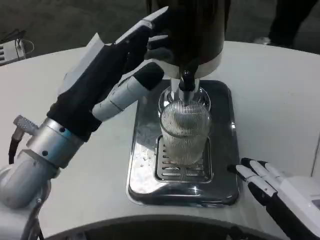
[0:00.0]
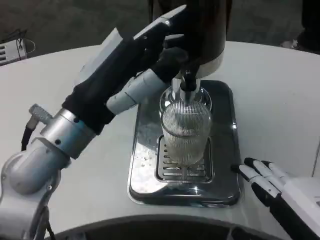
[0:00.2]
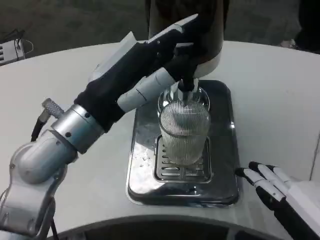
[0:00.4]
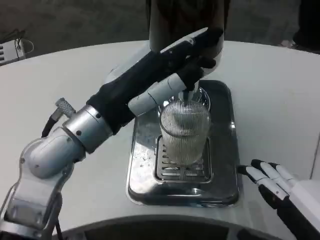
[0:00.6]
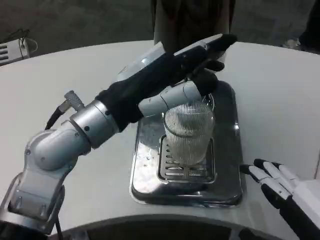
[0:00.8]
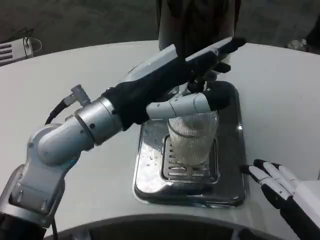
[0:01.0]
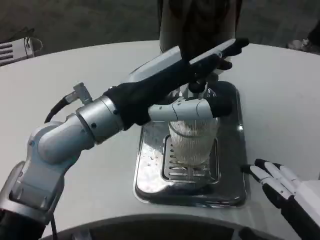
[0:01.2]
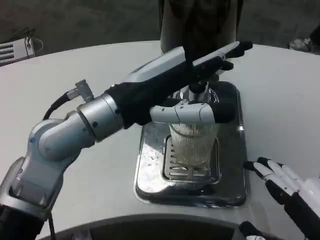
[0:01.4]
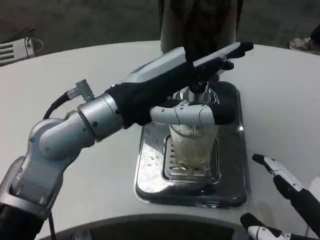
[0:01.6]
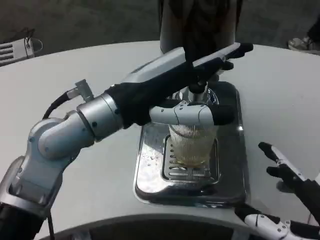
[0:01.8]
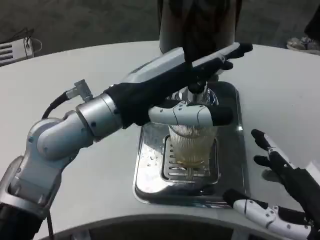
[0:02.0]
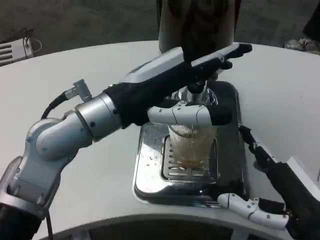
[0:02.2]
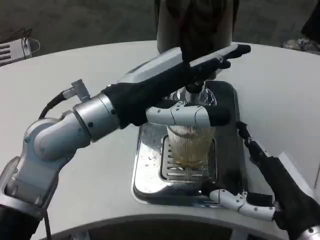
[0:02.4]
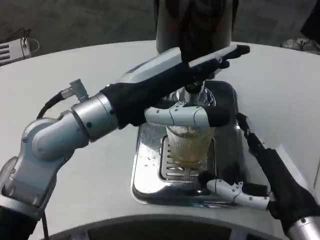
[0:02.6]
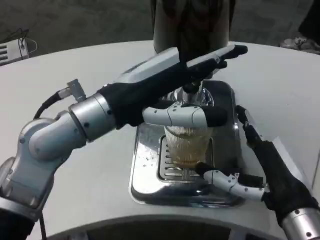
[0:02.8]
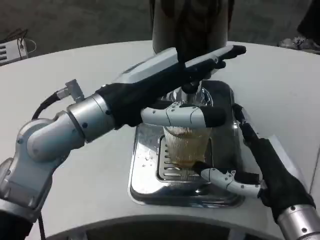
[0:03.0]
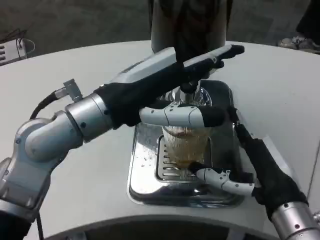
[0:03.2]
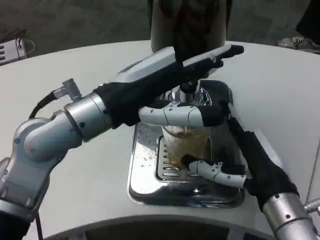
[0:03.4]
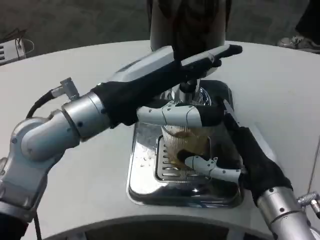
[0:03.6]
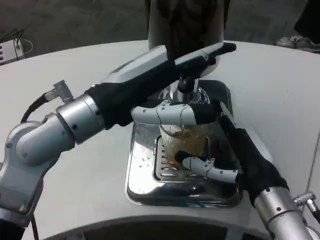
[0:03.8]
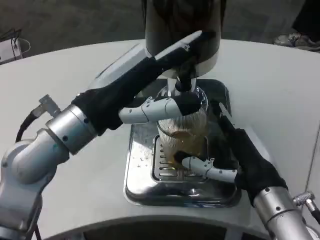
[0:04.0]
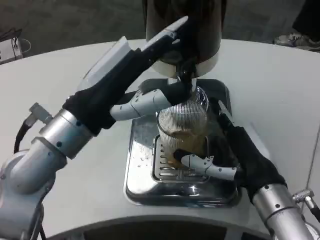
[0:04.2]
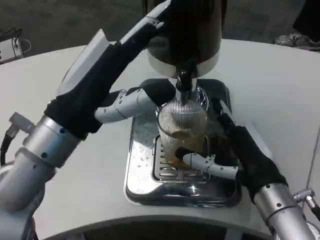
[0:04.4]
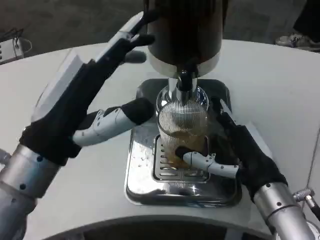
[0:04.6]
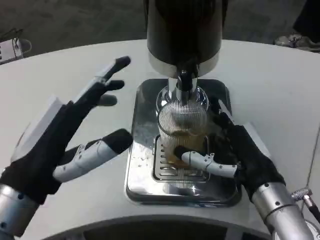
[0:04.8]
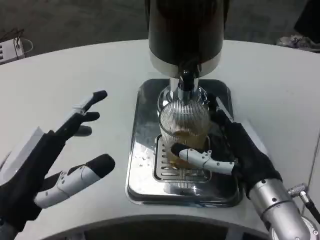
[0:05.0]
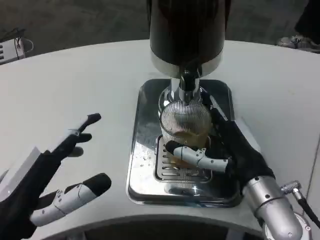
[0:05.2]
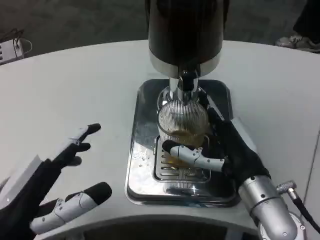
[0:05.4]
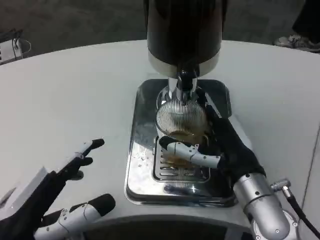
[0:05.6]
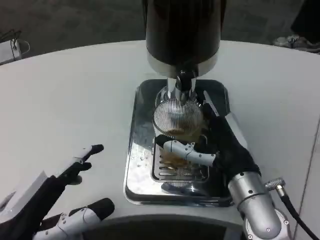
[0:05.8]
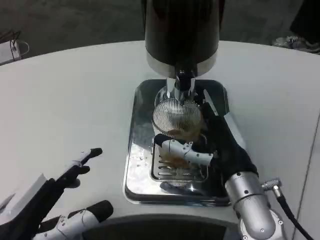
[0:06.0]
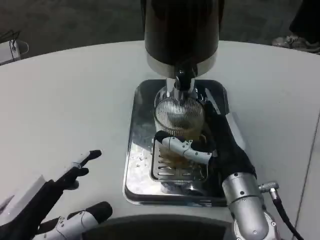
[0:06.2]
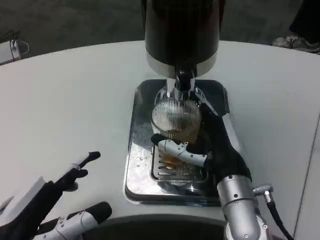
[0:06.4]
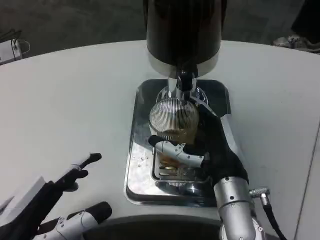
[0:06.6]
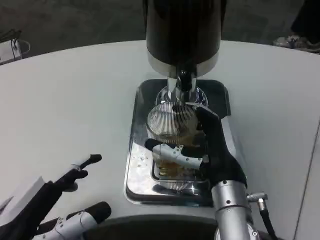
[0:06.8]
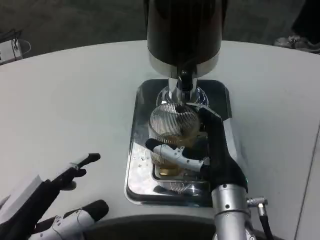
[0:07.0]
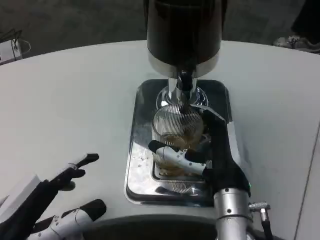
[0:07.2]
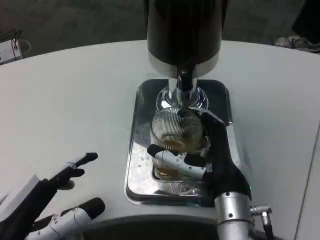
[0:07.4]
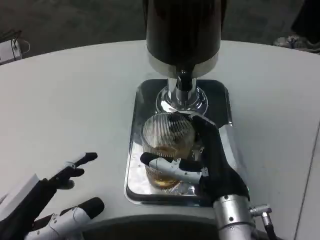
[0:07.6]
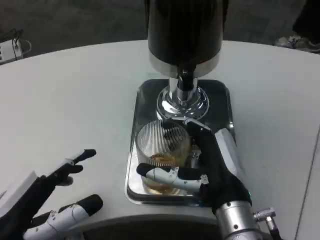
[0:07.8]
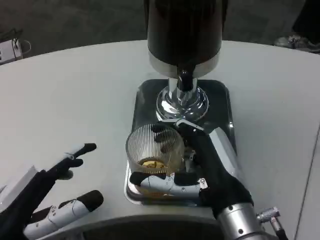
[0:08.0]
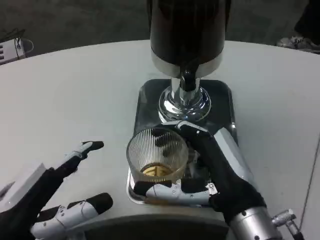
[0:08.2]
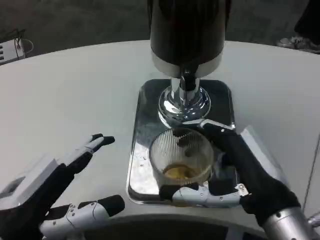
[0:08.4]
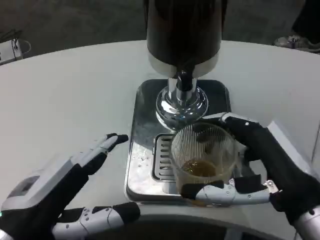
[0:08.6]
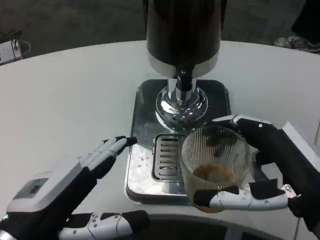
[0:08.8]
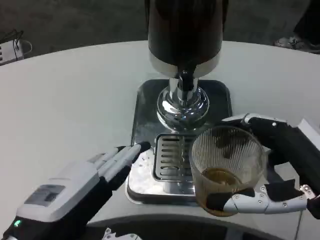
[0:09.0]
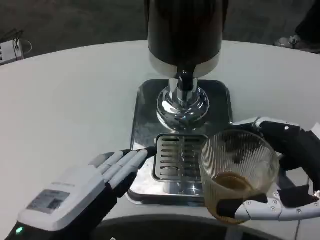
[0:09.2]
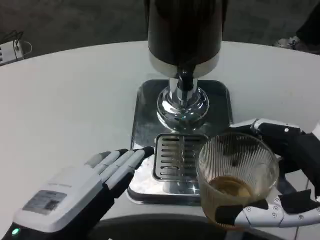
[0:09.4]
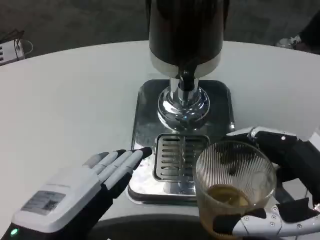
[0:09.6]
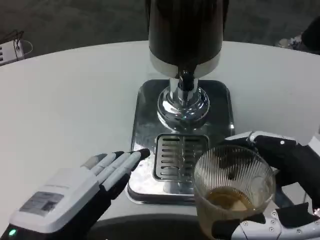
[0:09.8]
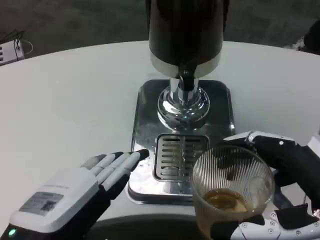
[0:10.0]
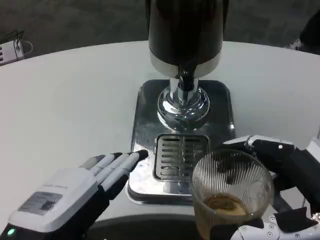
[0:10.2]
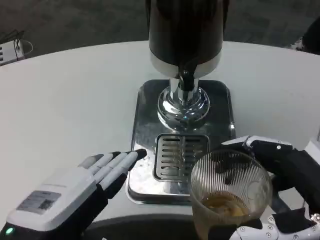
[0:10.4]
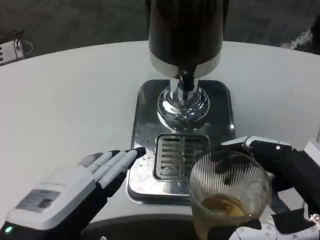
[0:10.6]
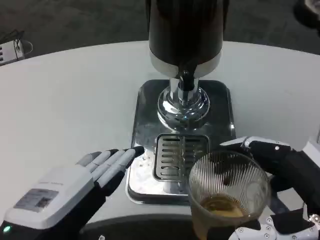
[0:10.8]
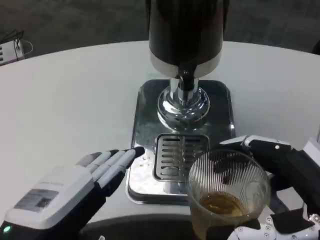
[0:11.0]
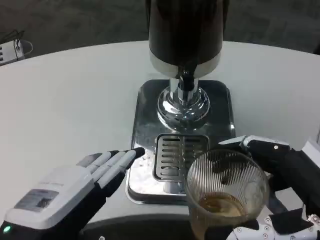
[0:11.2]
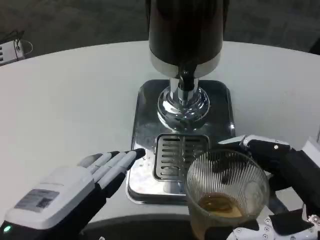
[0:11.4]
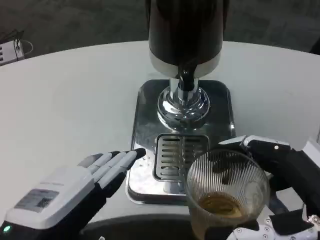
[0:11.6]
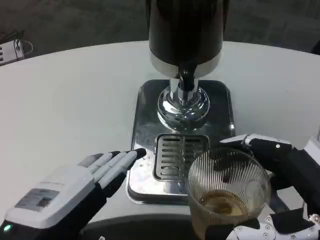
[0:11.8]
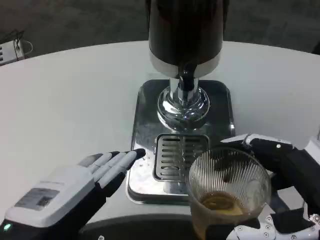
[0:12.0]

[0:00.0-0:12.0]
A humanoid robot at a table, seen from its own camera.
Task of the whole recording: Grasp the cup under the faucet to collect the drink, then remove the cup.
0:00.0 to 0:01.6: The left hand changes place by roughly 5 cm.
0:01.6 to 0:03.0: The right hand heads forward and to the left, covering some 10 cm.
0:03.0 to 0:04.4: The left hand changes place by about 5 cm.
0:04.4 to 0:06.0: The left hand goes some 15 cm downward, backward and to the left.
0:07.6 to 0:09.0: The left hand changes place by some 5 cm; the right hand goes about 15 cm to the right, backward and upward.
0:10.4 to 0:12.0: The two hands keep their place.

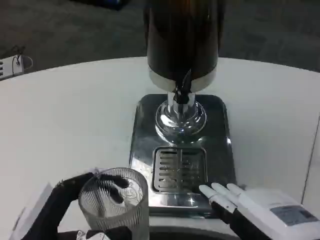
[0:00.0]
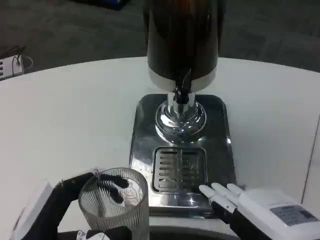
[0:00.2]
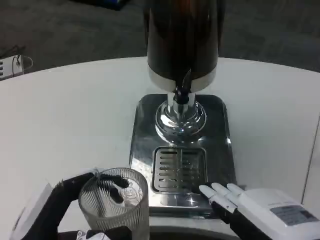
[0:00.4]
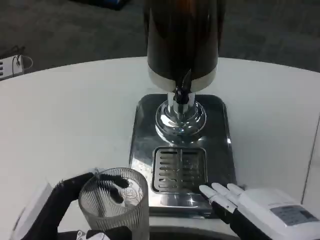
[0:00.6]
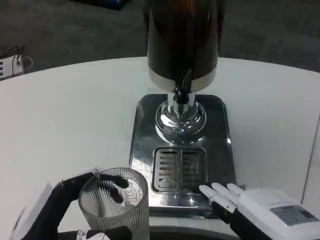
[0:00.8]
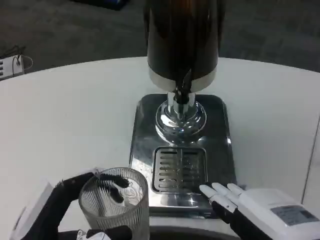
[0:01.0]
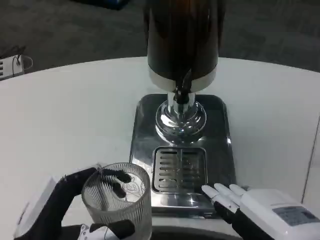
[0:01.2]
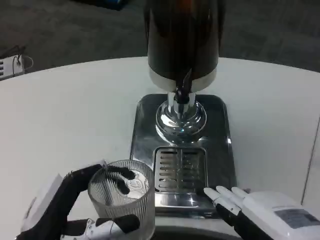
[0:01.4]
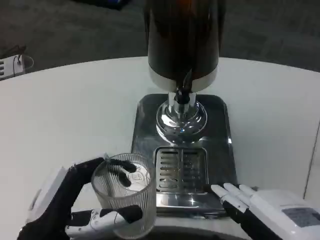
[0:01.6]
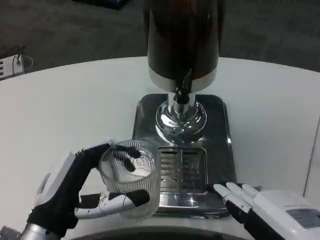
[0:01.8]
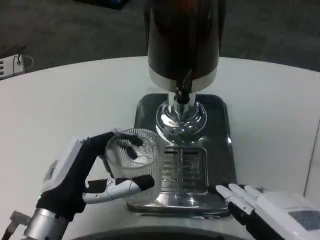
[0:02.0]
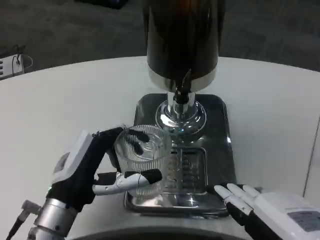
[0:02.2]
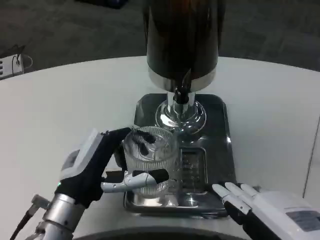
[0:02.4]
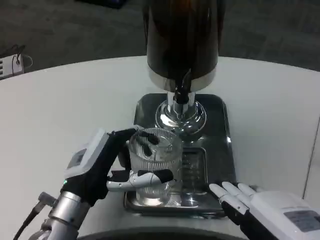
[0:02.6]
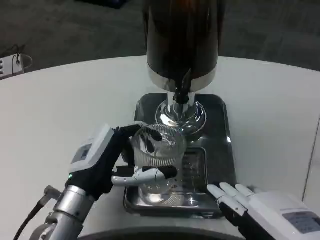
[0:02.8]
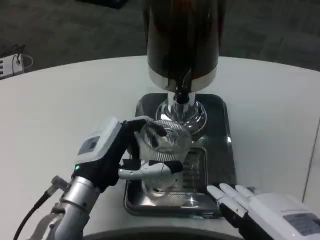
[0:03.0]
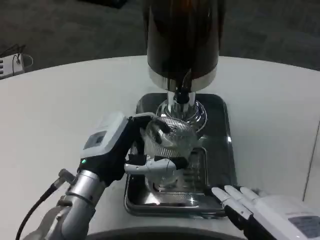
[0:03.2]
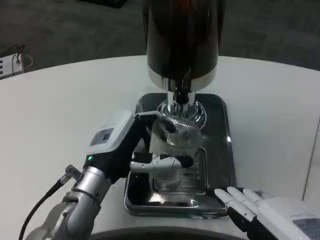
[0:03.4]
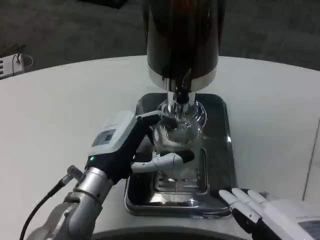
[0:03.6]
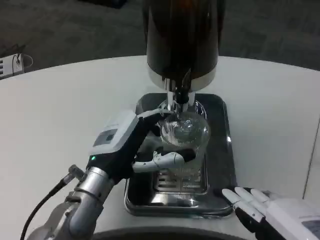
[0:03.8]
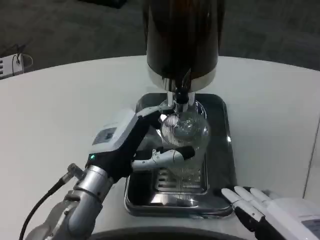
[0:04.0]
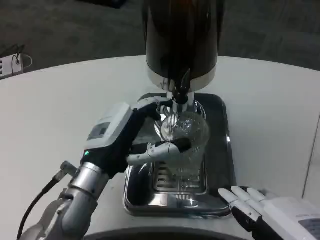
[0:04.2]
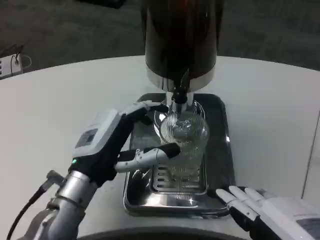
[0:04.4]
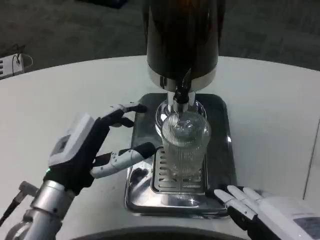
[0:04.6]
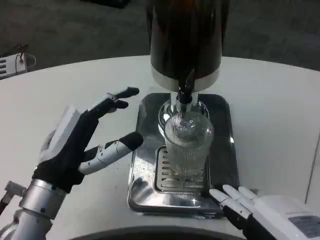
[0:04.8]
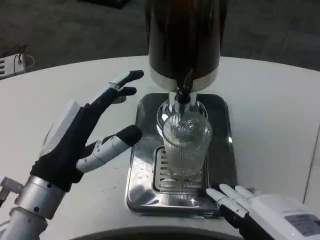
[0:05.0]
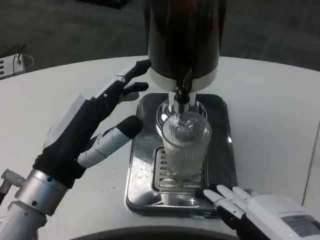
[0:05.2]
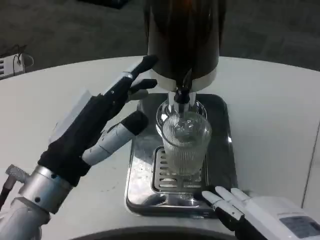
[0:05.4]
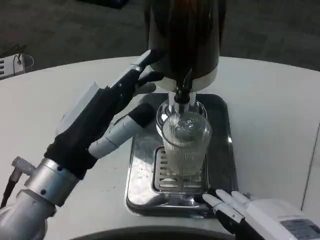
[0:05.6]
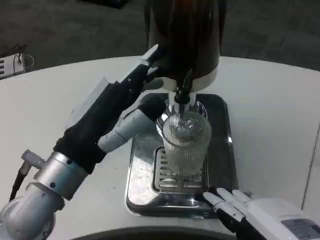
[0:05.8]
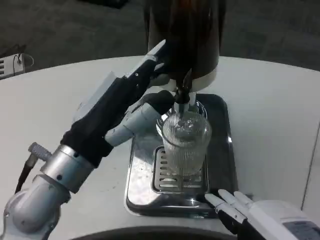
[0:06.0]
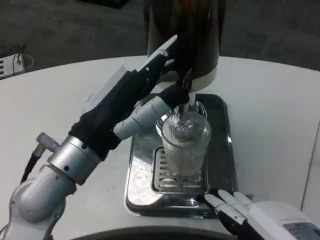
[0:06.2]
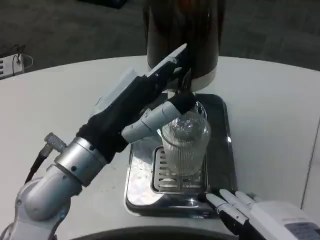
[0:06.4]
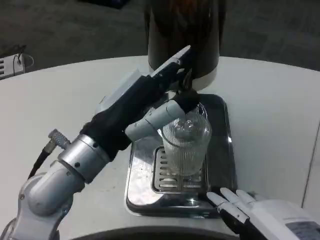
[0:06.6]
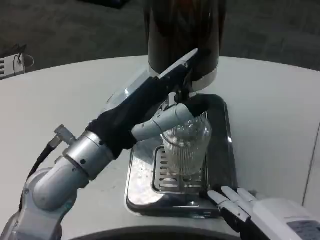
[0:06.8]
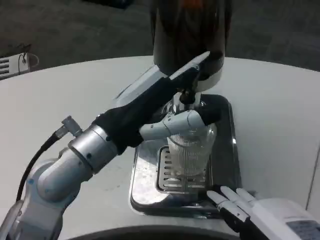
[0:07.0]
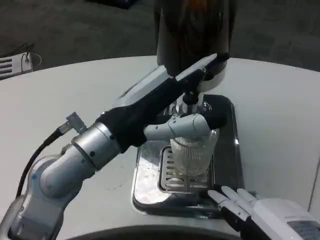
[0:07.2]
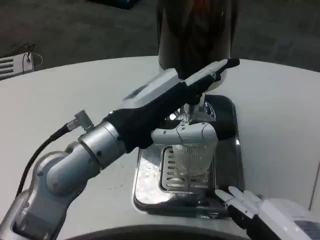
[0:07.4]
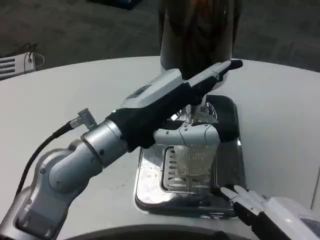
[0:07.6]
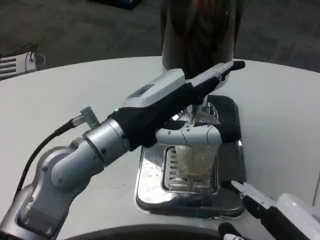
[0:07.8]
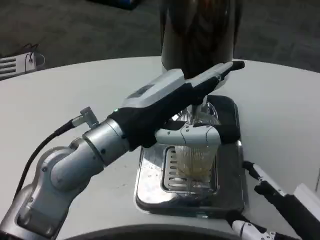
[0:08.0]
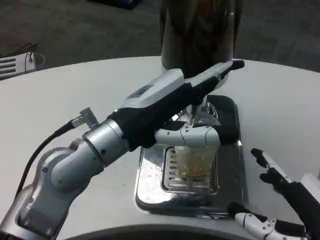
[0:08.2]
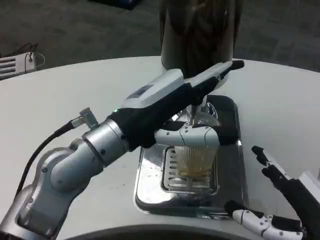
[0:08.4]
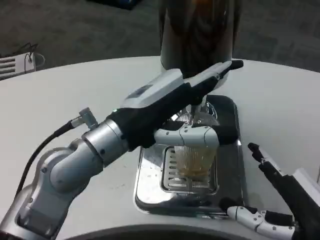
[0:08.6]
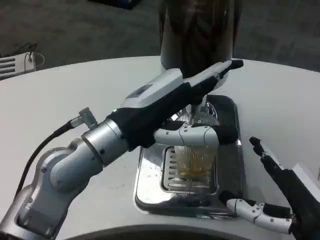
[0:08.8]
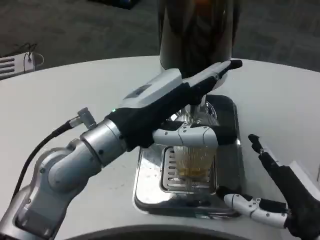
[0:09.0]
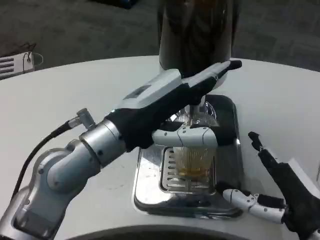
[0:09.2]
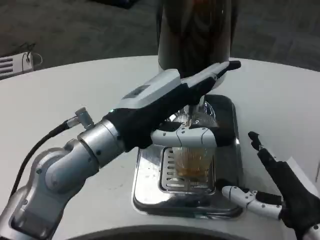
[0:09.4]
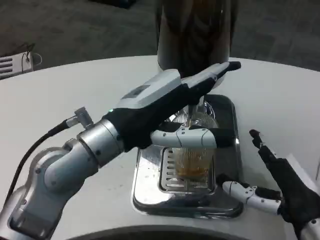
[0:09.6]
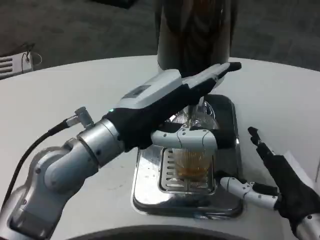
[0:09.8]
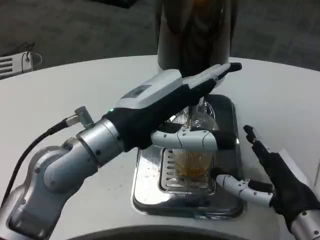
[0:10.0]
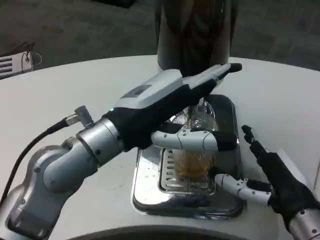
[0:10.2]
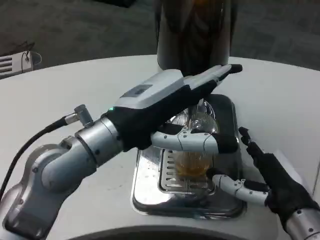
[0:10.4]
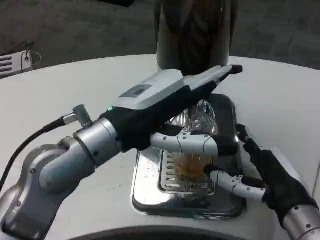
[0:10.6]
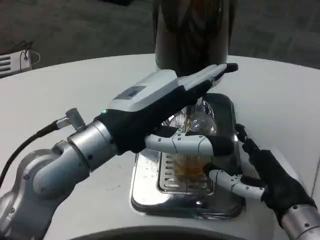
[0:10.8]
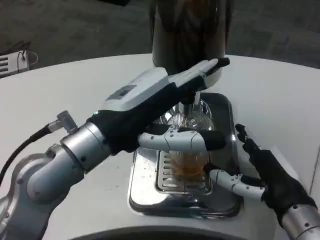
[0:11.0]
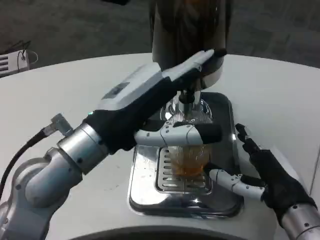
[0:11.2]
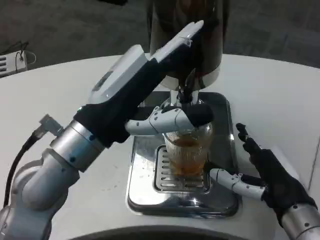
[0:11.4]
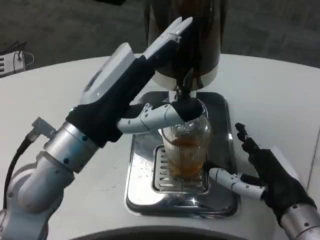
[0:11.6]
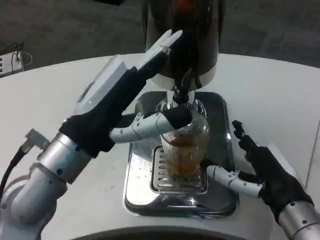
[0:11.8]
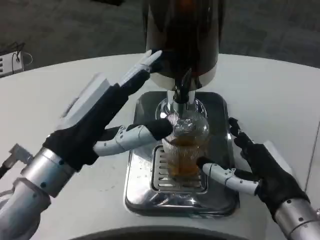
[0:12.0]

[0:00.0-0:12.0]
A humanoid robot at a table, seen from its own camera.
Task of the whole recording: Grasp the cup under the faucet to collect the drink, then remove the cup.
0:00.0 to 0:01.6: The hands move only a little.
0:01.6 to 0:03.0: The left hand goes roughly 10 cm forward.
0:03.0 to 0:04.4: The hands stay close to where they were, moving slightly.
0:04.4 to 0:06.0: The left hand travels upward by about 10 cm.
0:06.0 to 0:07.6: The left hand shifts by about 5 cm.
0:07.6 to 0:09.0: The right hand shifts roughly 10 cm forward.
0:10.4 to 0:12.0: The left hand heads to the left, covering approximately 5 cm.
